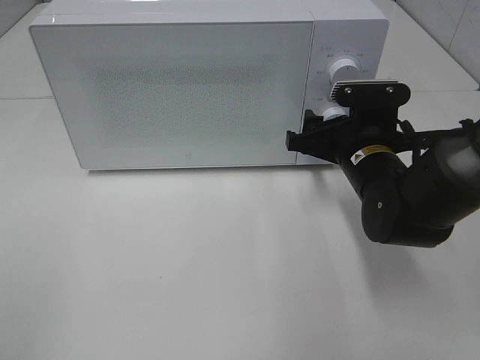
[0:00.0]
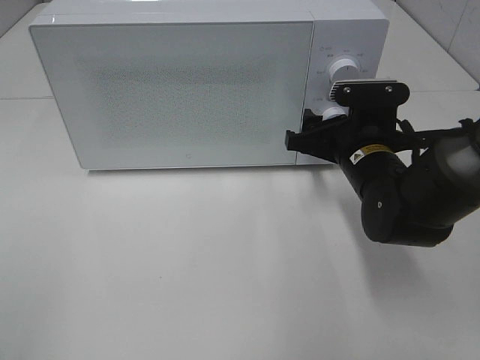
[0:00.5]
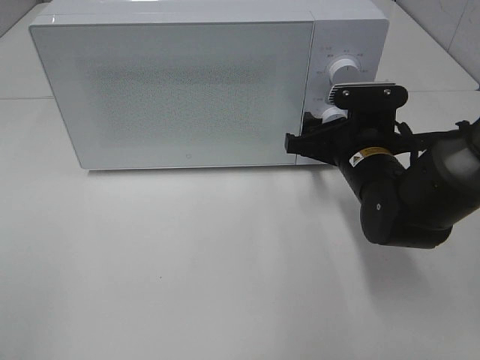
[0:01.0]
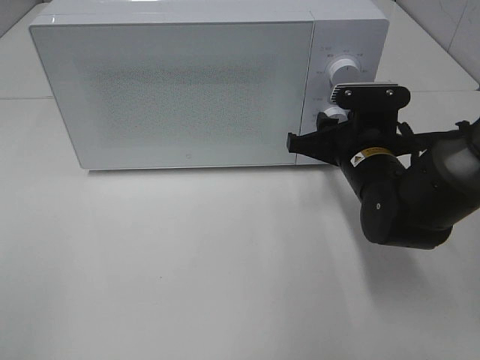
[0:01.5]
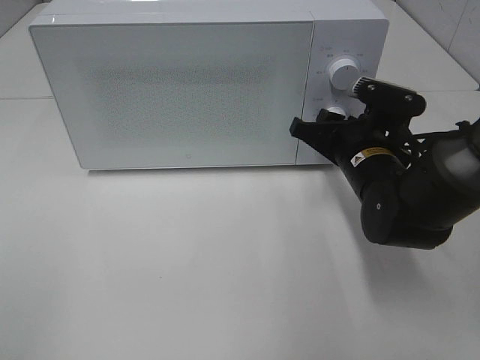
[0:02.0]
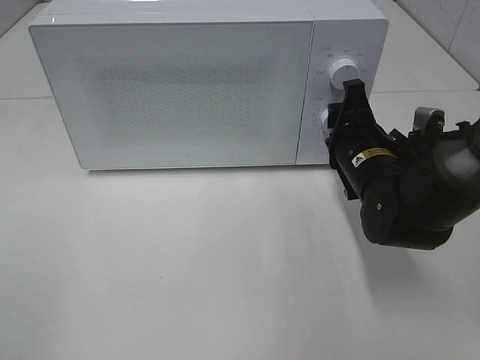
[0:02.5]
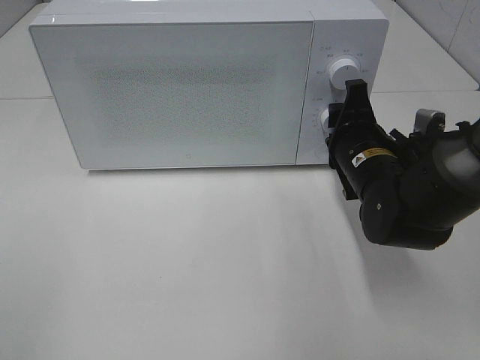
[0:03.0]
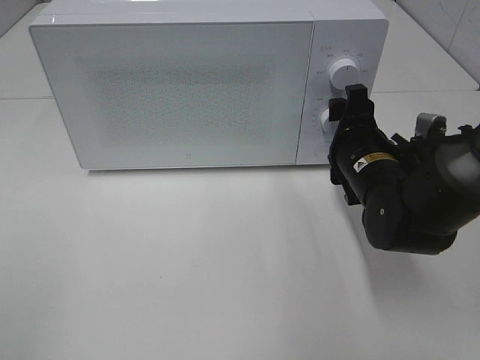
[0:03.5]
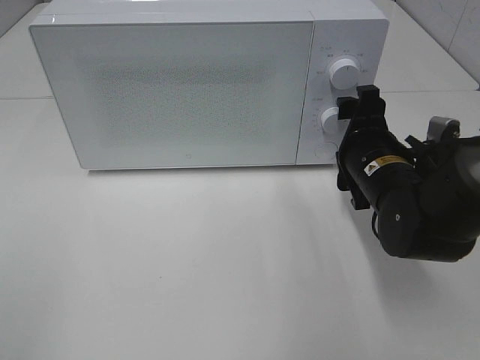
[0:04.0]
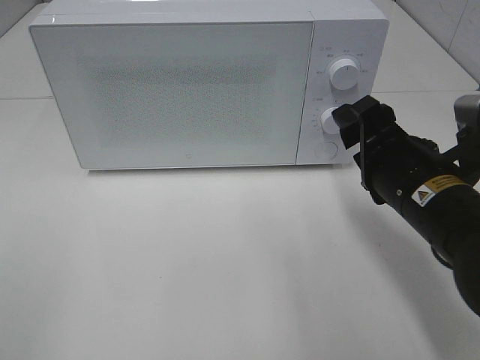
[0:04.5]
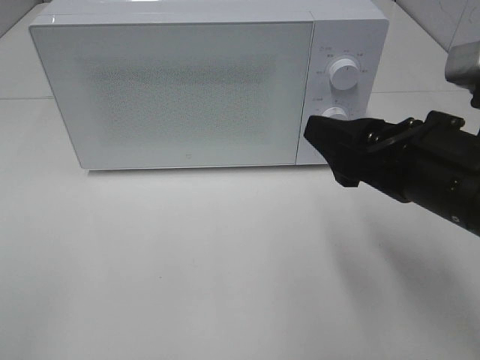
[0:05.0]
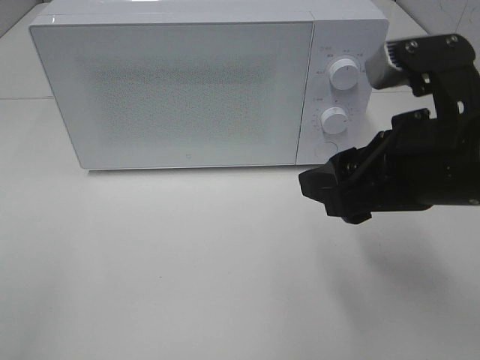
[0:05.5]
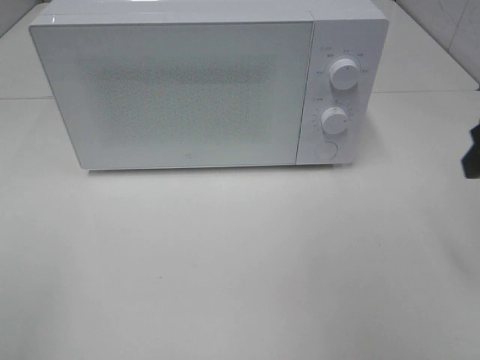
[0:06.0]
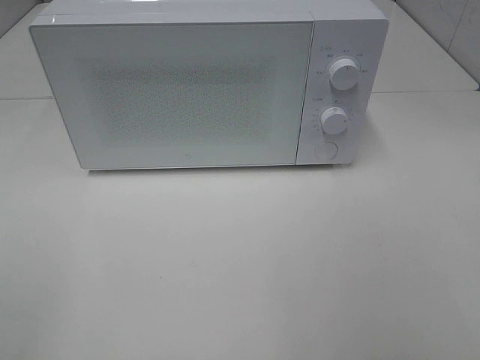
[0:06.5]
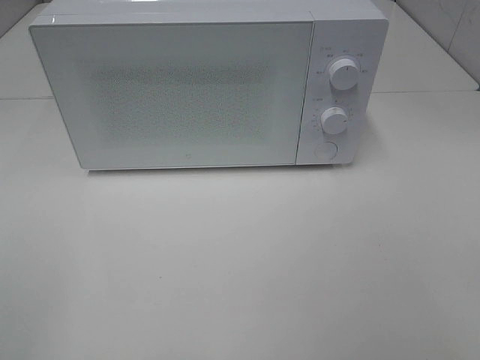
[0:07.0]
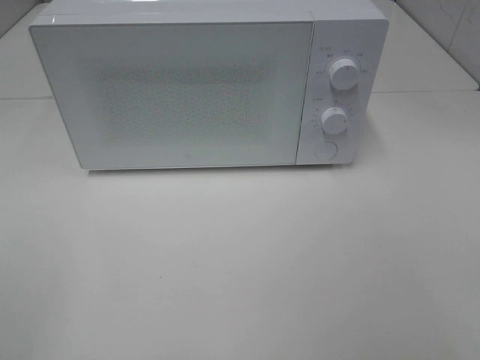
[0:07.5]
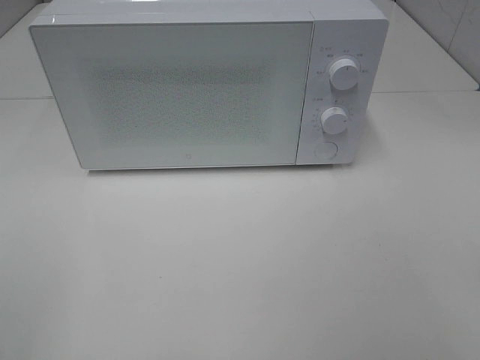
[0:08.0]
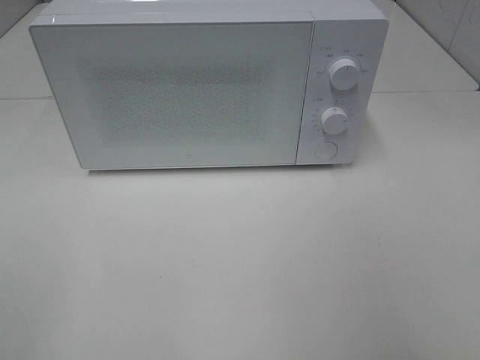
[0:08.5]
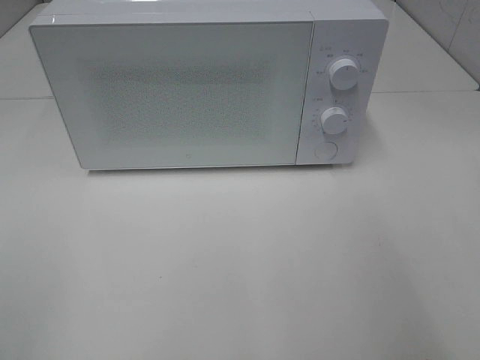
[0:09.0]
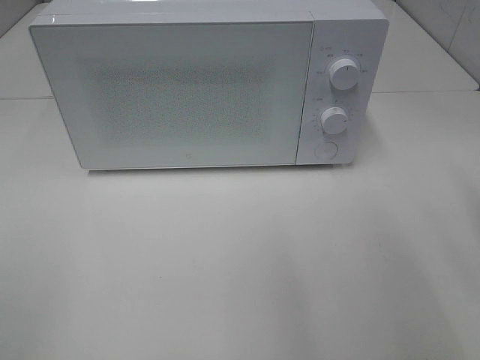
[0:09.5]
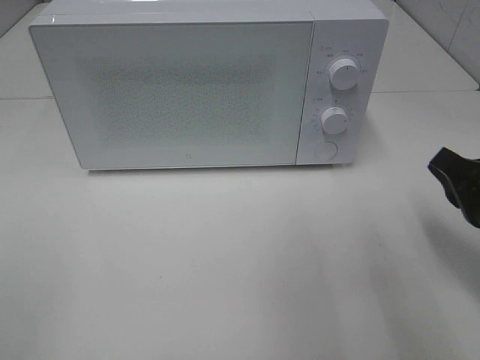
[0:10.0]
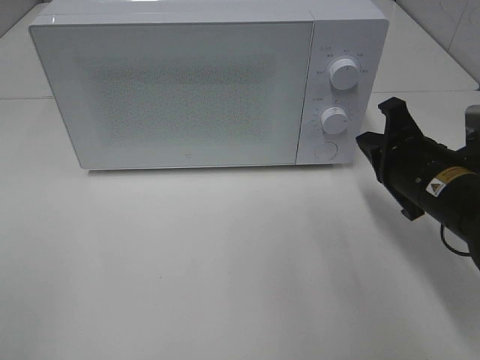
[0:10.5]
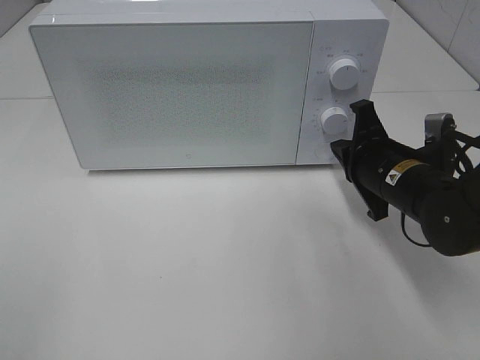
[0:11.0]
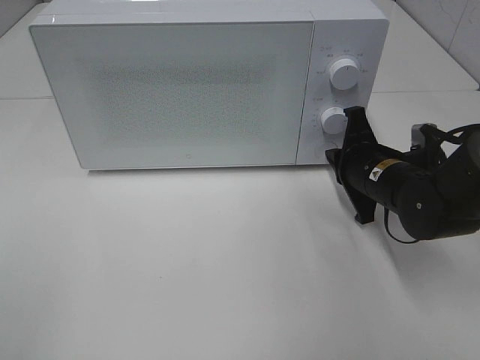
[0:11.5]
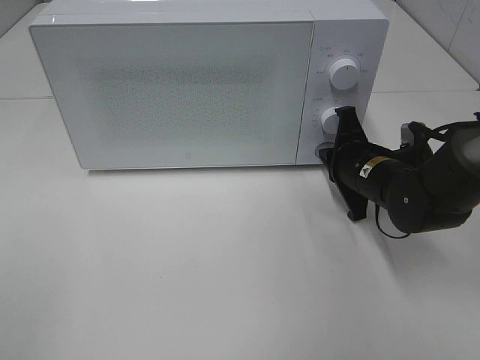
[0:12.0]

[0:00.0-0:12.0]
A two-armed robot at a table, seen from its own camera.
Task of the whole recording: Heat the burger.
Step, 0:00.0 to 0:03.0: Right hand: twist timer button.
0:00.0 to 0:02.0: The grippers move only a little.
0:02.0 to 0:04.0: The right gripper opens up.
0:04.0 to 0:06.0: The right gripper moves upward, to the right and backward, some 20 cm.
0:08.0 to 0:10.0: The right gripper is displaced forward and downward by roughly 25 cm, and closes up.
0:10.0 to 0:12.0: The right gripper travels forward, to the left and downward by roughly 20 cm.

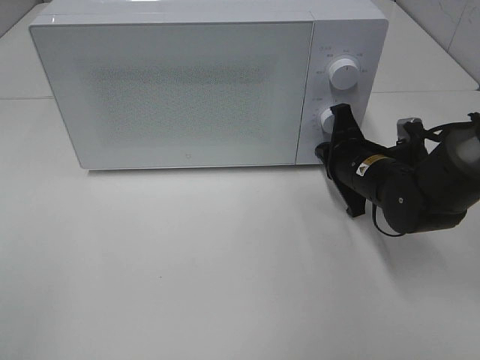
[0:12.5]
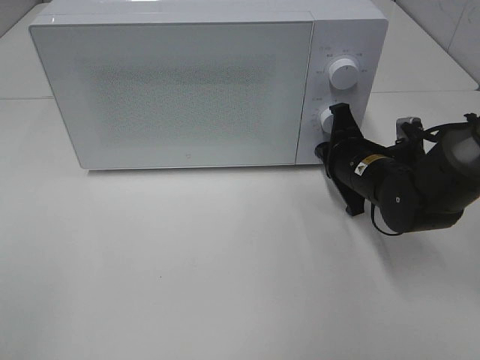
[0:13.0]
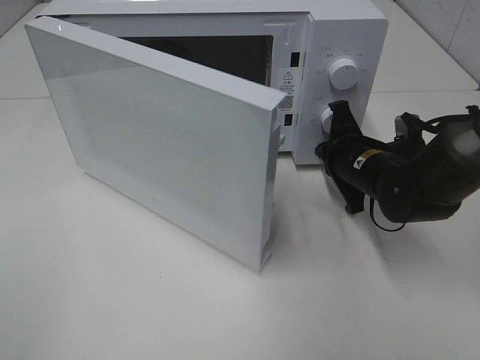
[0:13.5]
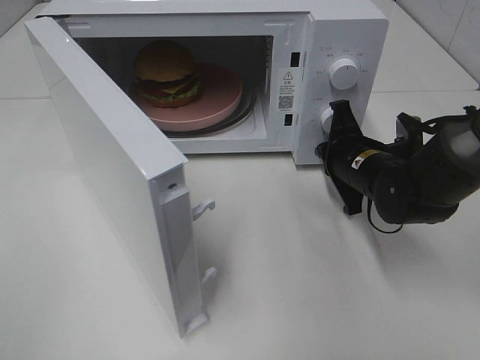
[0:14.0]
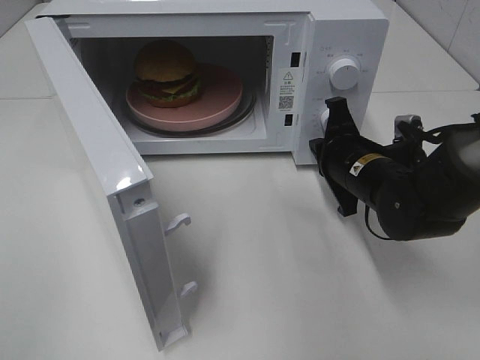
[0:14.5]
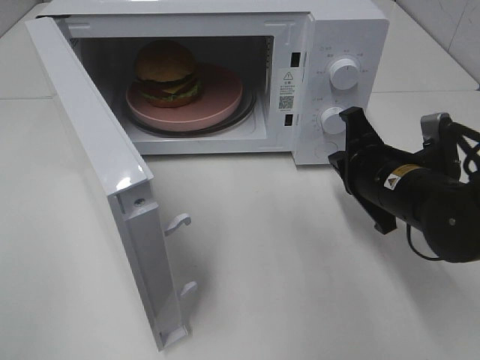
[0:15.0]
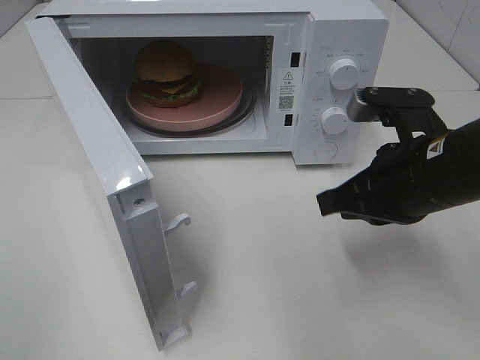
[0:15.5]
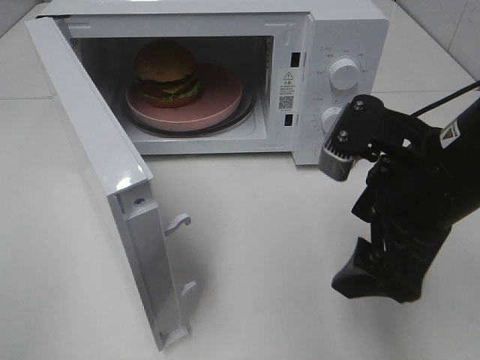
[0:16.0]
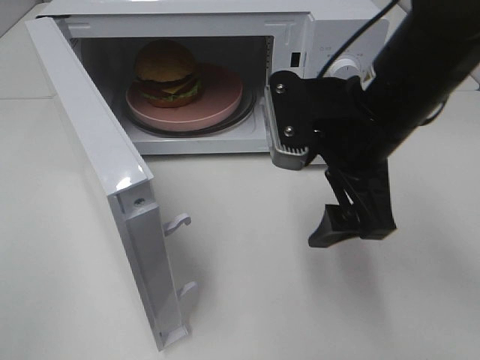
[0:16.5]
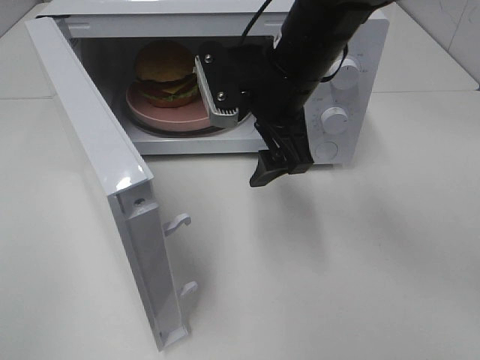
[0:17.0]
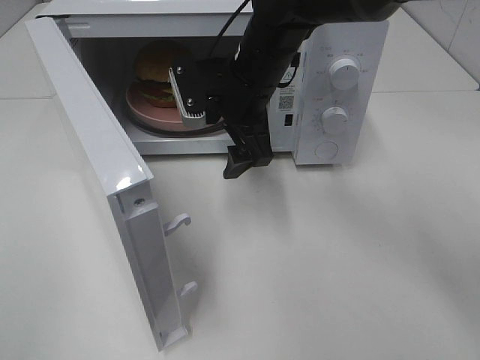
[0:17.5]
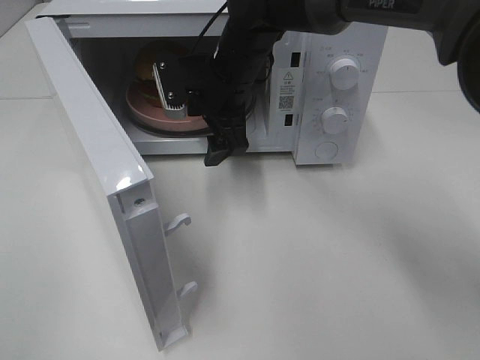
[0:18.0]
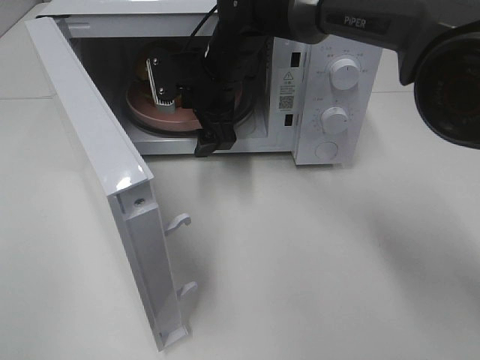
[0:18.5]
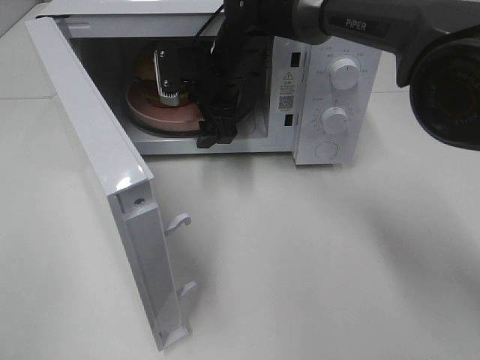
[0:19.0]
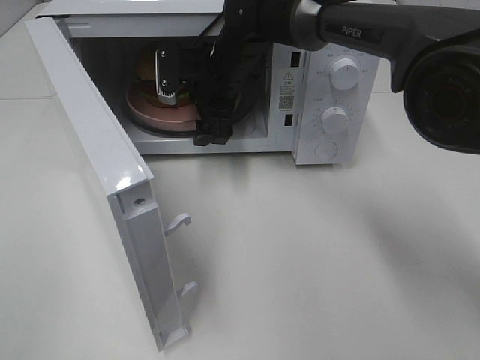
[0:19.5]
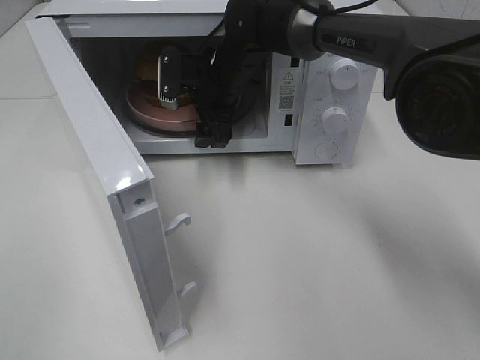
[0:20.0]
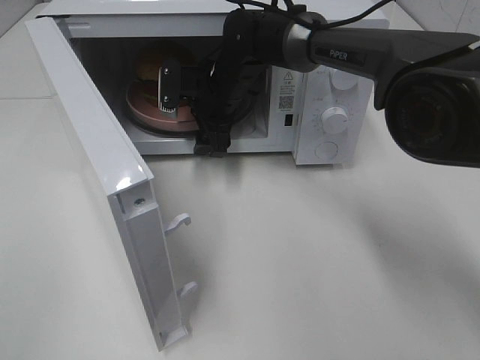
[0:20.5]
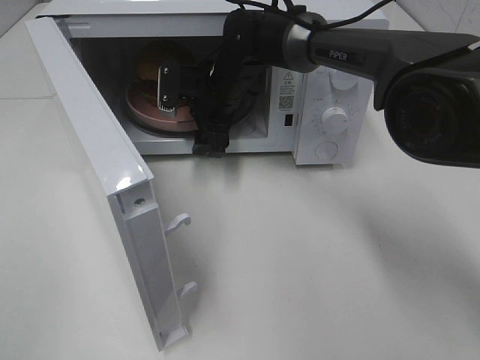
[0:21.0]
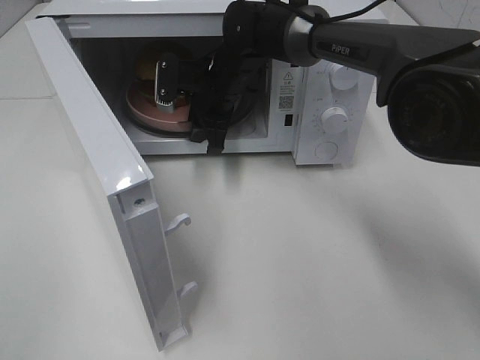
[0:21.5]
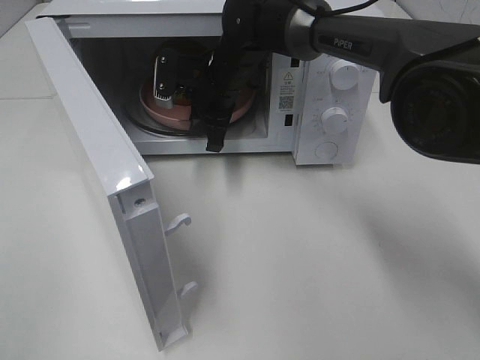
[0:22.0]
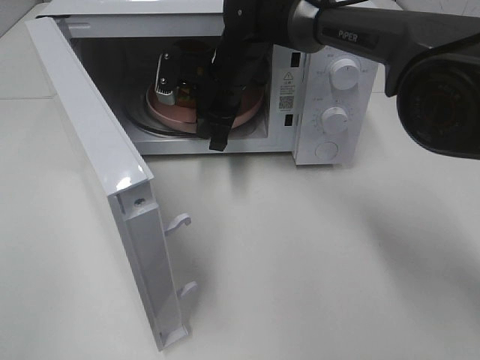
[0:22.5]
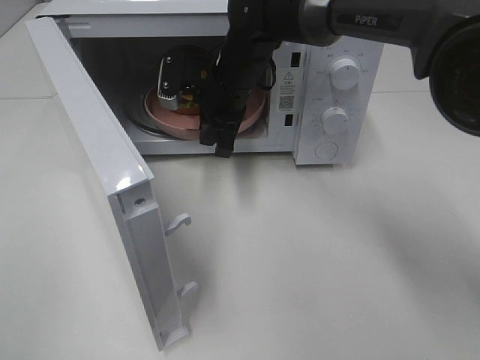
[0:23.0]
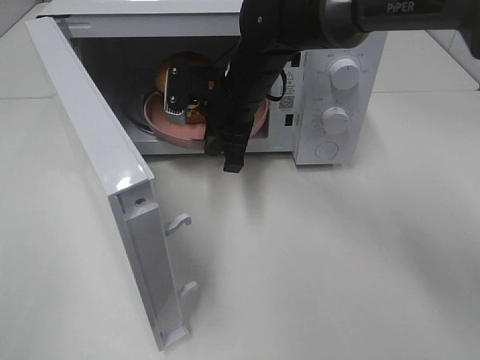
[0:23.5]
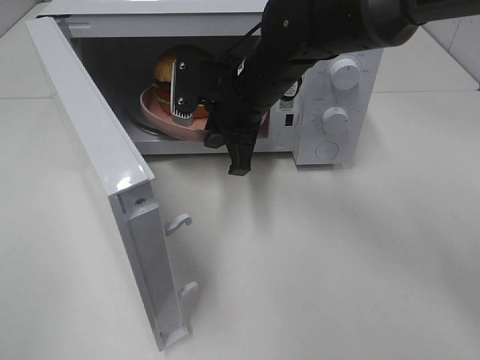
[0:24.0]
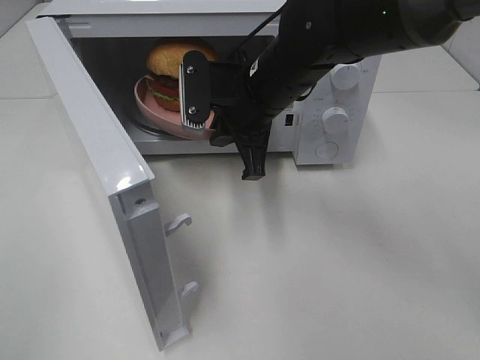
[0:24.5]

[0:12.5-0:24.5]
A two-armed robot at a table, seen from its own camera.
Task of the whole recording: Heat the burger.
Step, 0:14.5 to 0:21.5: Right hand: grab the plate with the hamburger.
0:14.5 to 0:16.5: The right gripper moves upward and backward, approximately 15 cm, and opens its fingers.
0:16.5 to 0:18.5: The right gripper is displaced forward and to the left by approximately 25 cm.
0:18.5 to 0:20.5: The right gripper ends up roughly 5 cm from where it was.
0:20.5 to 0:22.5: The right gripper closes its fingers.
0:22.5 to 0:24.5: The right gripper moves backward, roughly 10 cm.

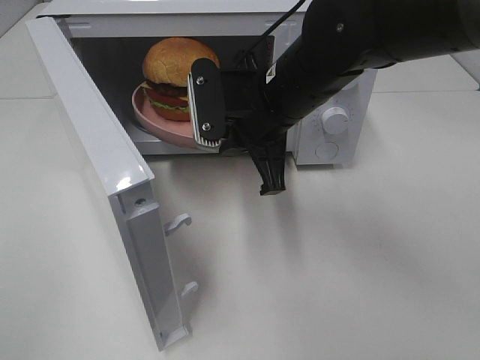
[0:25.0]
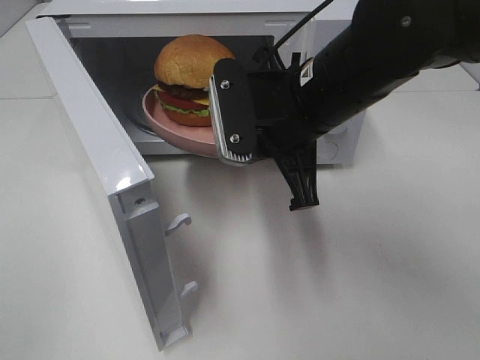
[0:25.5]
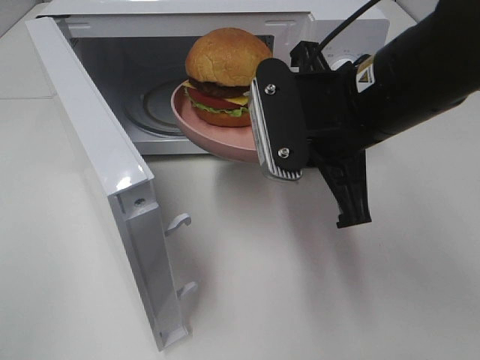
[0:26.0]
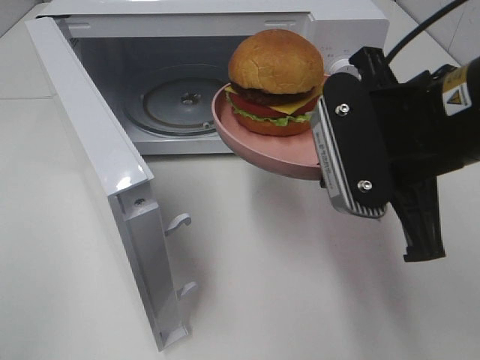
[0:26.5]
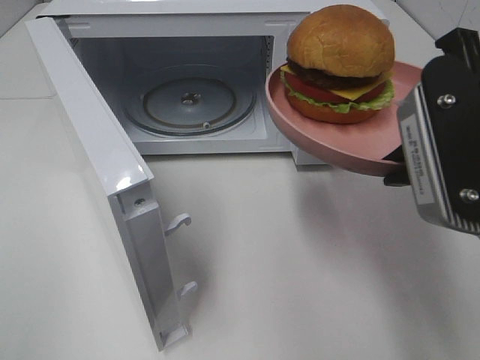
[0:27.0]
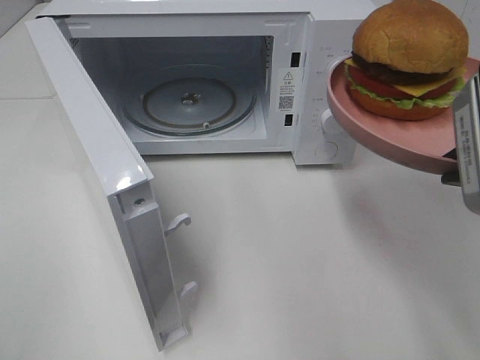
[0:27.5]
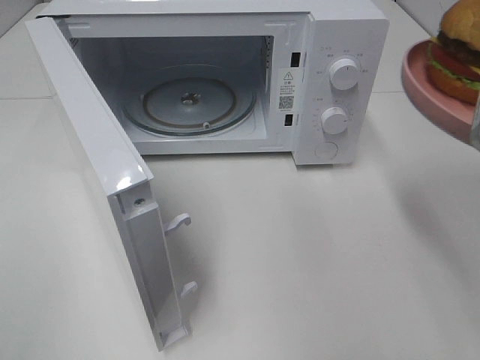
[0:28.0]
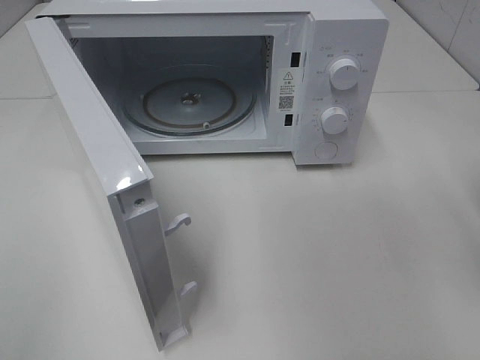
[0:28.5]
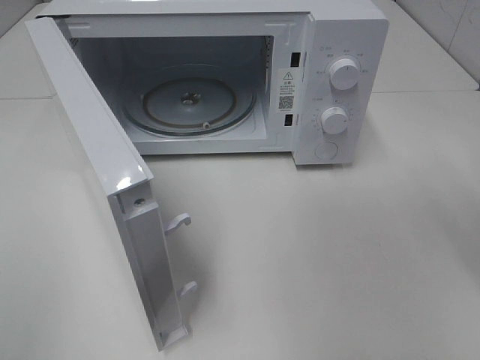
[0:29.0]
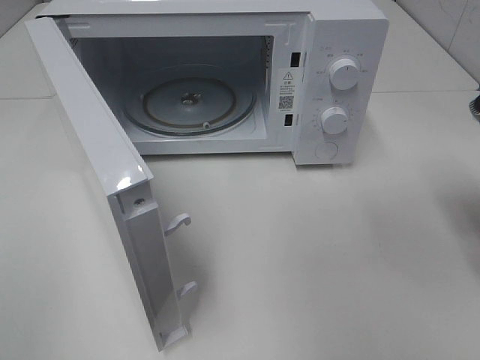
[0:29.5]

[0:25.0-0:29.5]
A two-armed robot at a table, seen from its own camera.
Task of the whole recording: Heat the burger.
0:25.0 to 0:27.0: The right gripper travels backward, to the right and upward by roughly 20 cm.
0:27.0 to 0:29.5: The right gripper heads to the right, forward and downward, covering some 15 cm.
